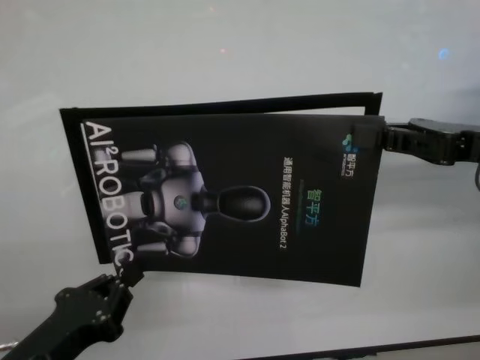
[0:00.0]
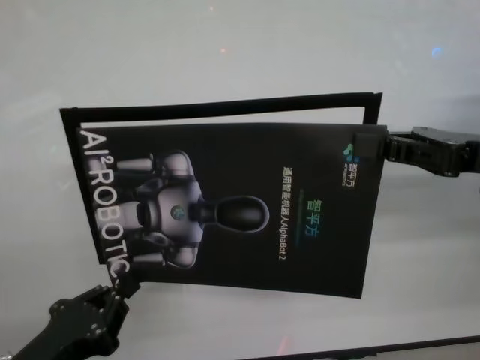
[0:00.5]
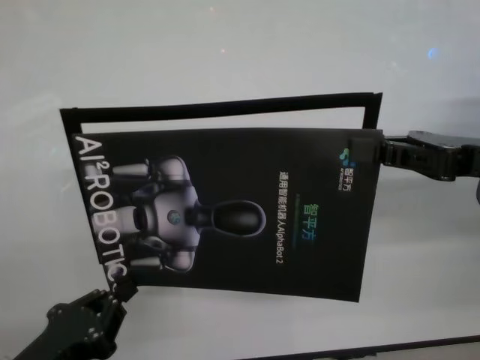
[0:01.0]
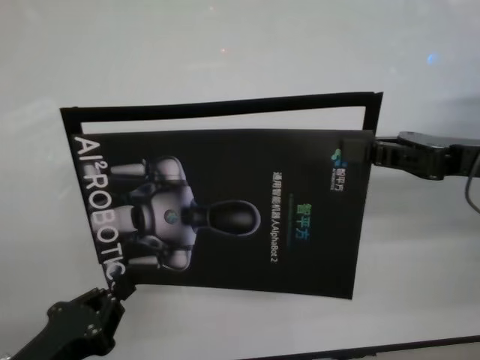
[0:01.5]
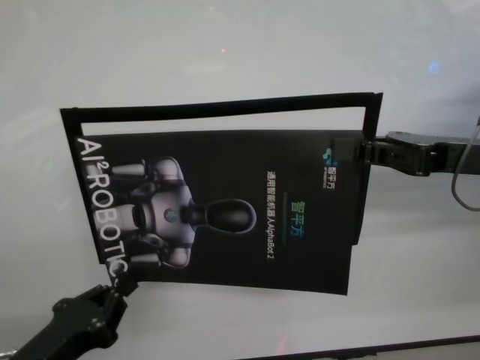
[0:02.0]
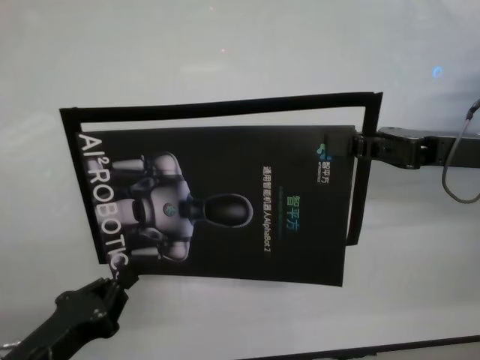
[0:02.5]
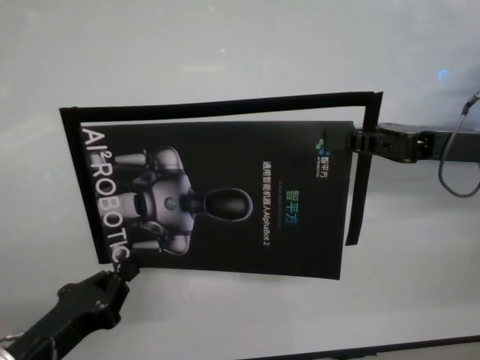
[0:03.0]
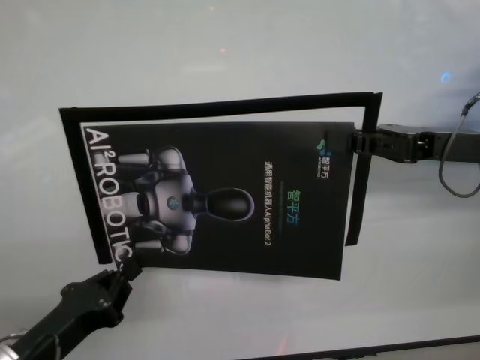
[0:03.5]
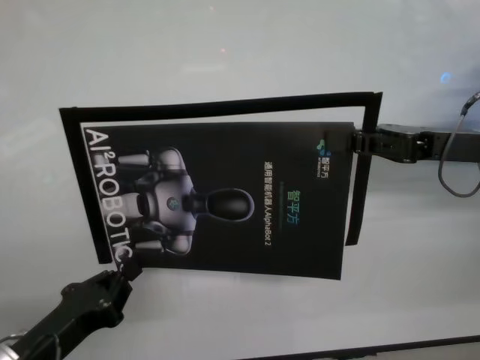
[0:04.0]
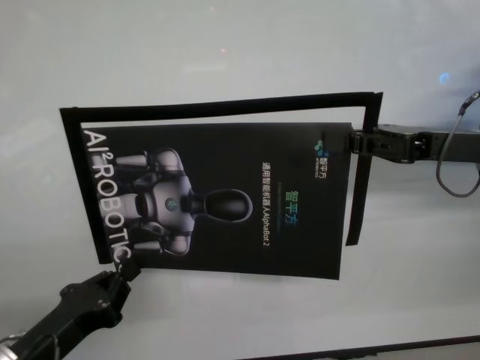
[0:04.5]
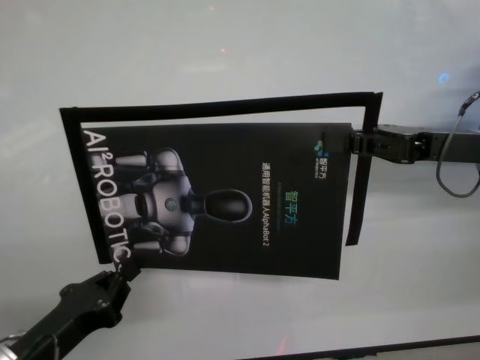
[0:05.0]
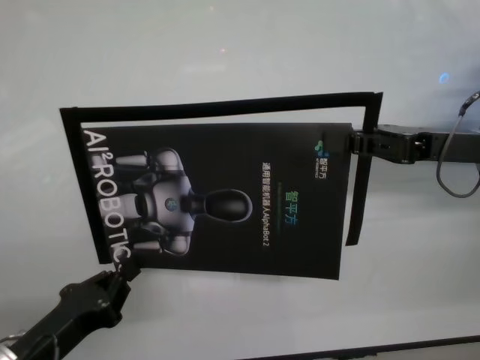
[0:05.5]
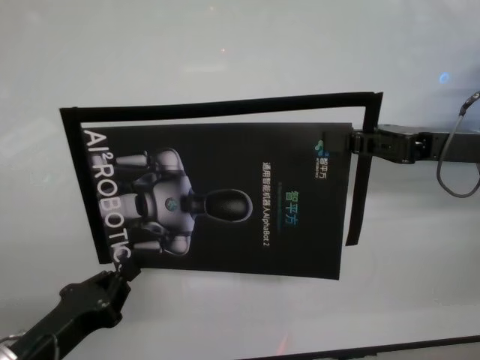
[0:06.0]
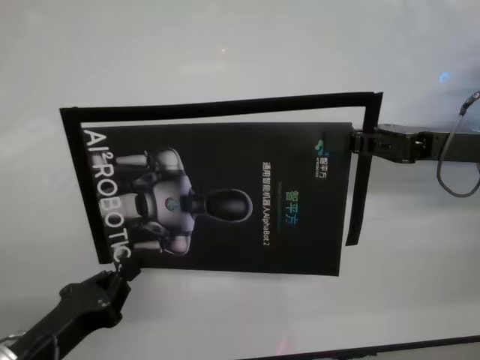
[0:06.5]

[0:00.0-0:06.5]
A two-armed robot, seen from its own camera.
Task of the whole recording: stick the poster on the table by hand.
Step, 0:00.0 to 0:02.5: Stick the advertisement in the top-right corner area with both grippers.

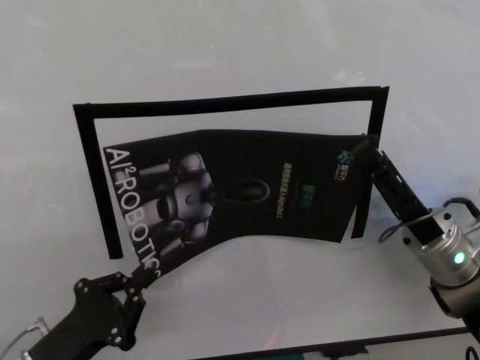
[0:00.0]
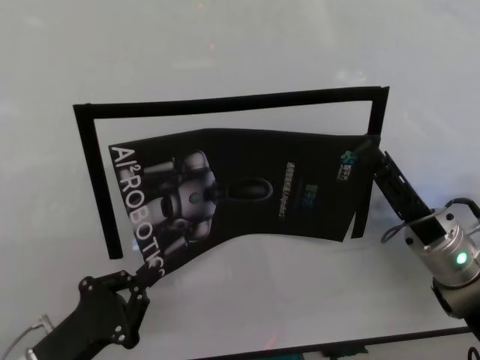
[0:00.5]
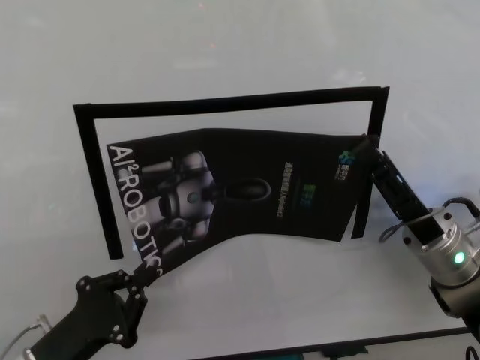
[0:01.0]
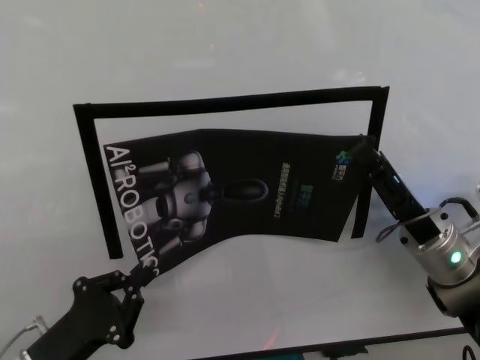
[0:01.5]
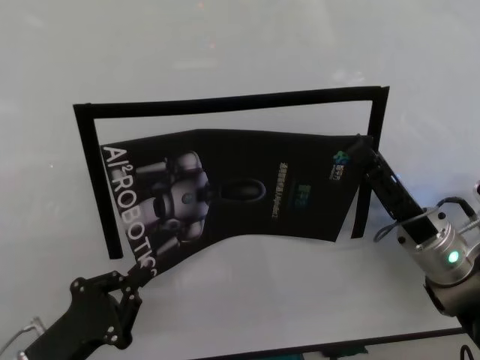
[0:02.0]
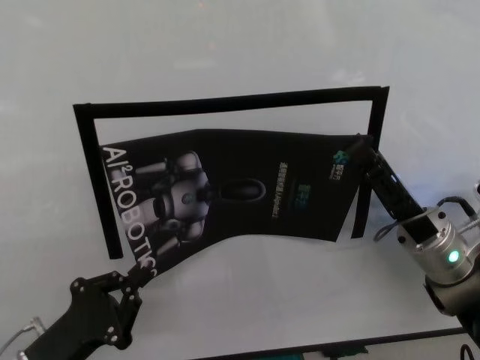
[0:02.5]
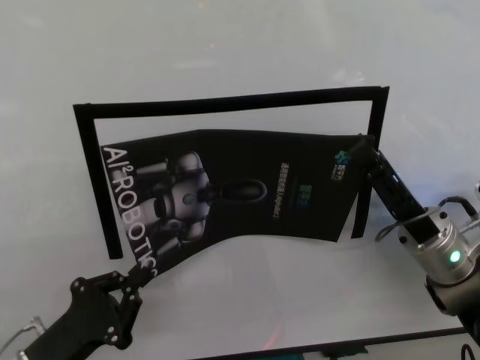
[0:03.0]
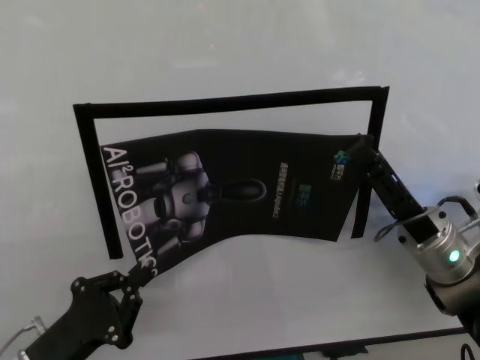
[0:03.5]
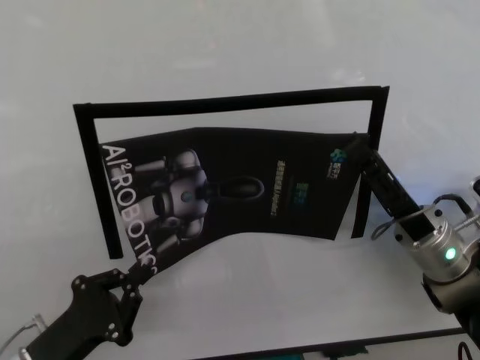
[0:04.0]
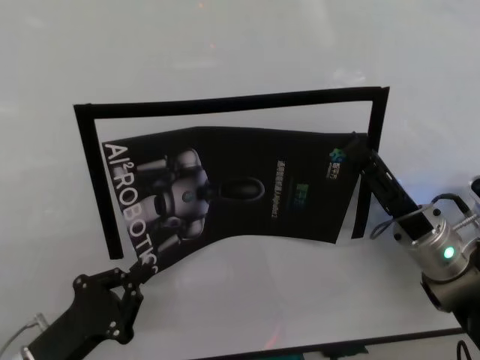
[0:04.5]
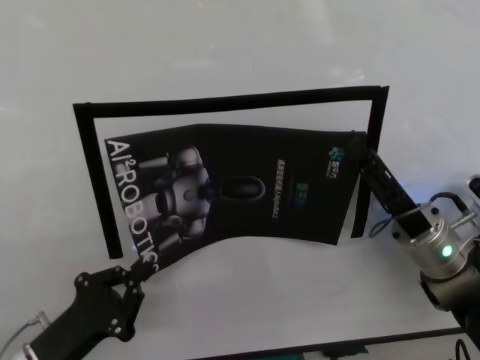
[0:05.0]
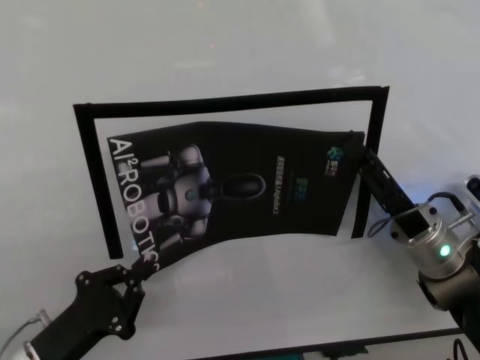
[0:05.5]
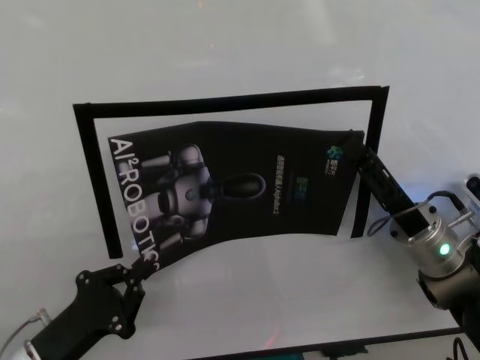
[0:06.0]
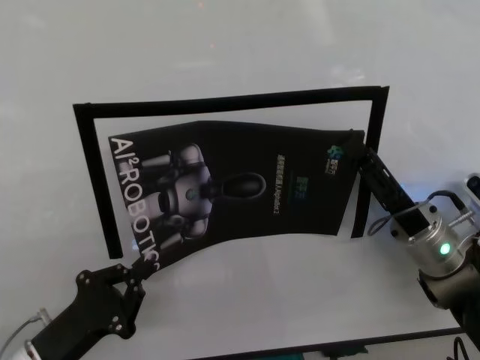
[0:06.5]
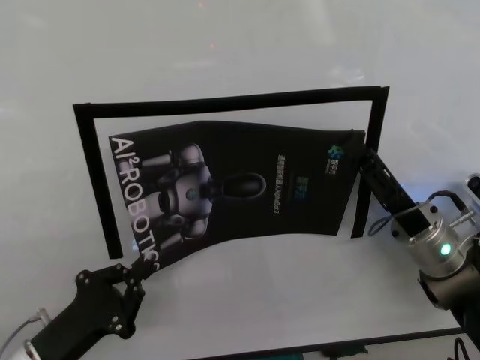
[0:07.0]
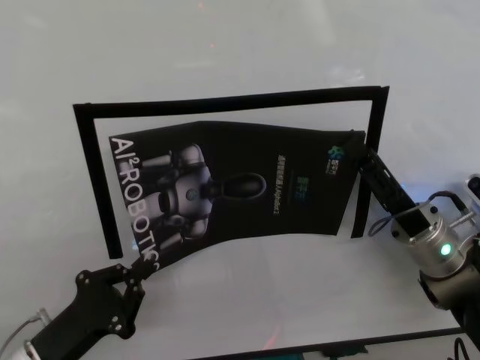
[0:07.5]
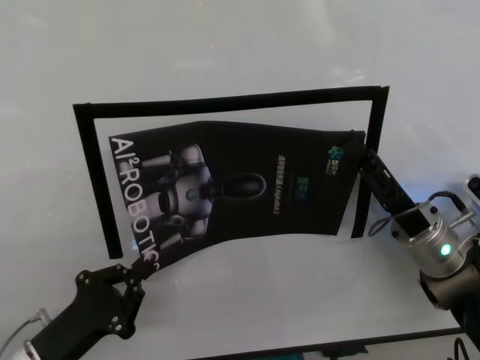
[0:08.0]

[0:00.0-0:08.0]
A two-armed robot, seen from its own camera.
Task of the whole recording: stick the poster on the table by hand.
Step, 0:00.0 to 0:02.5: Stick the advertisement in the top-right corner area with both grippers.
